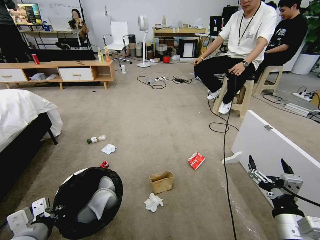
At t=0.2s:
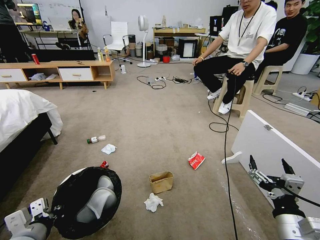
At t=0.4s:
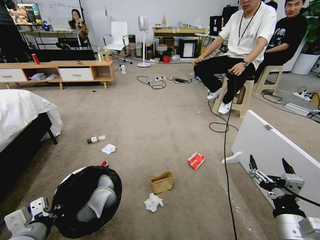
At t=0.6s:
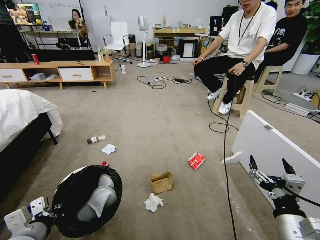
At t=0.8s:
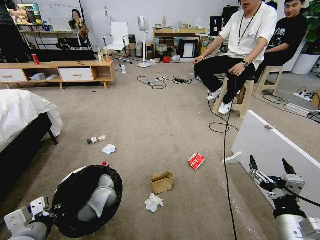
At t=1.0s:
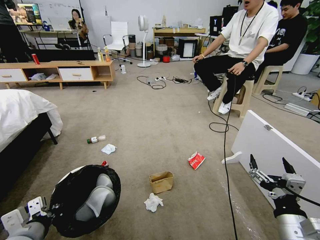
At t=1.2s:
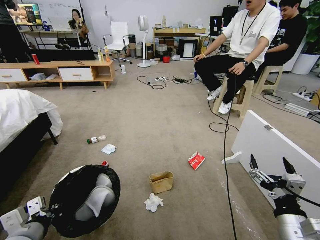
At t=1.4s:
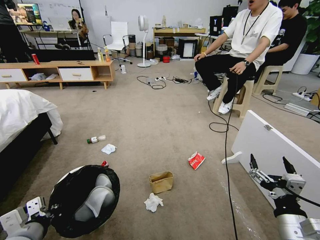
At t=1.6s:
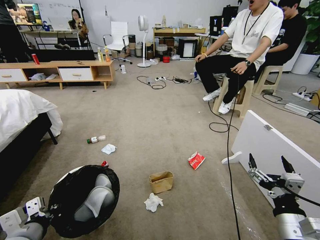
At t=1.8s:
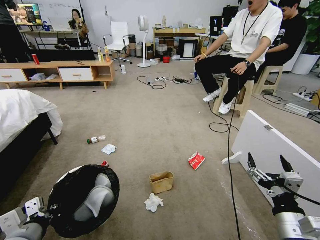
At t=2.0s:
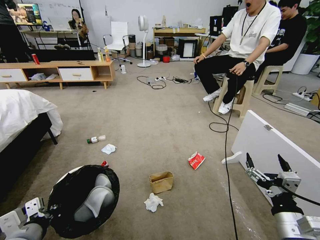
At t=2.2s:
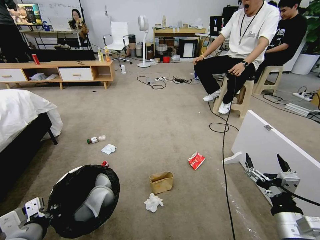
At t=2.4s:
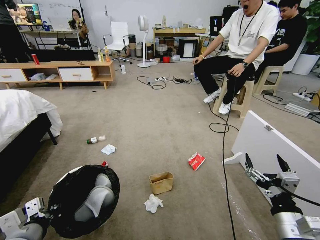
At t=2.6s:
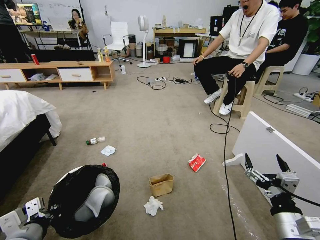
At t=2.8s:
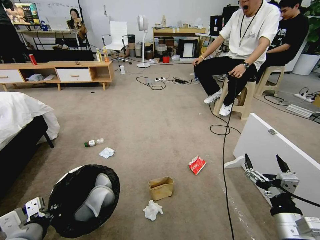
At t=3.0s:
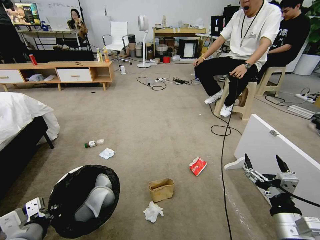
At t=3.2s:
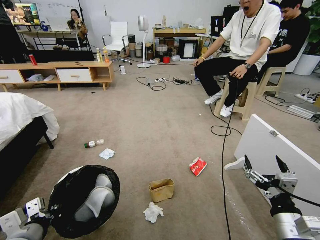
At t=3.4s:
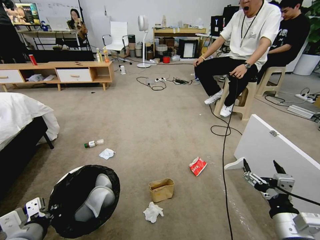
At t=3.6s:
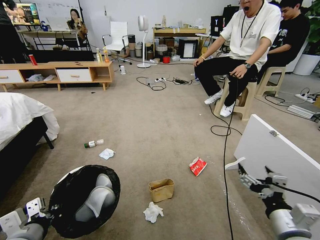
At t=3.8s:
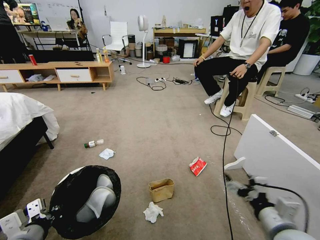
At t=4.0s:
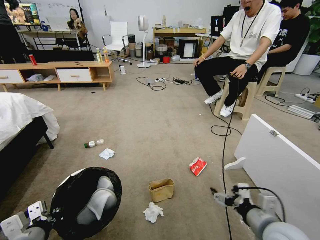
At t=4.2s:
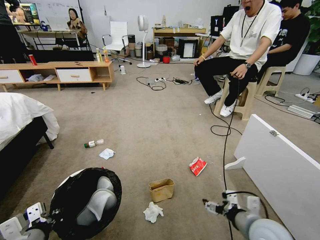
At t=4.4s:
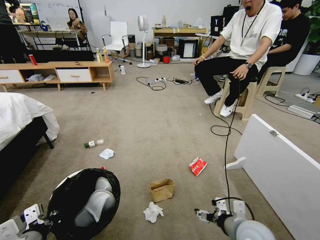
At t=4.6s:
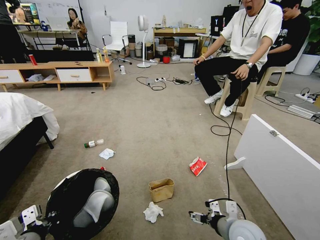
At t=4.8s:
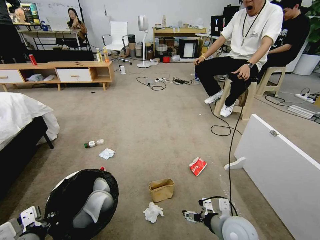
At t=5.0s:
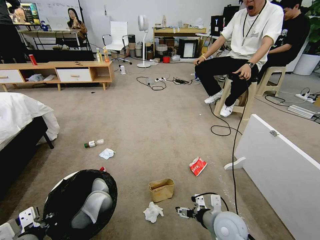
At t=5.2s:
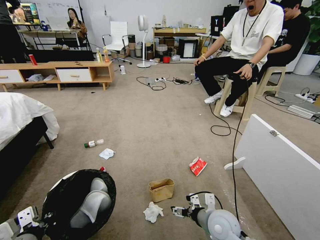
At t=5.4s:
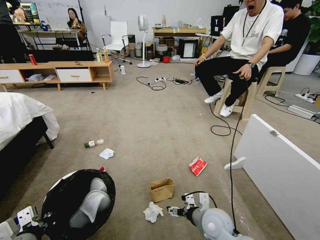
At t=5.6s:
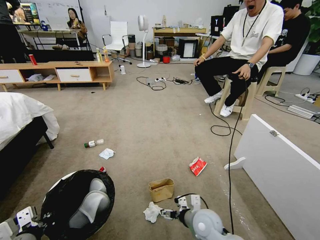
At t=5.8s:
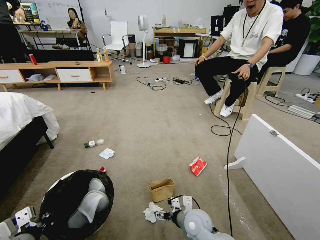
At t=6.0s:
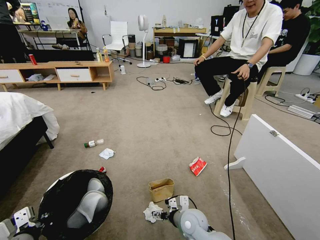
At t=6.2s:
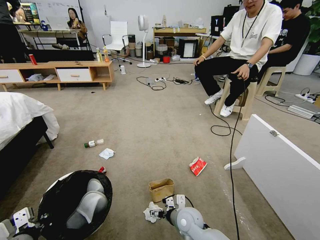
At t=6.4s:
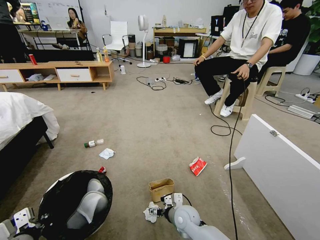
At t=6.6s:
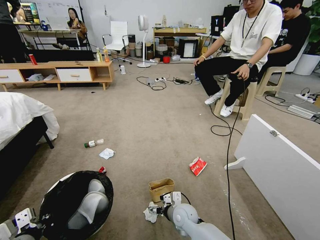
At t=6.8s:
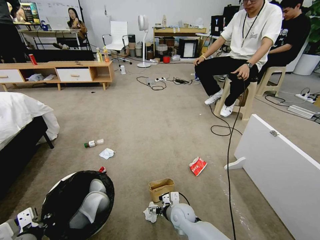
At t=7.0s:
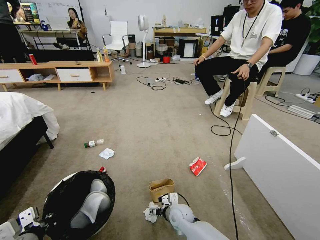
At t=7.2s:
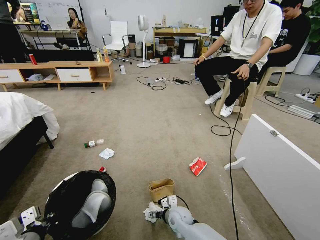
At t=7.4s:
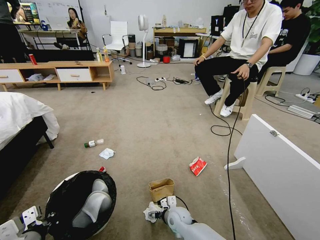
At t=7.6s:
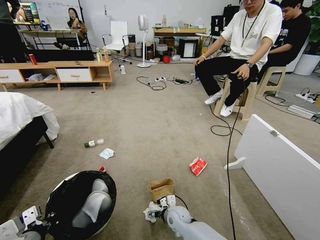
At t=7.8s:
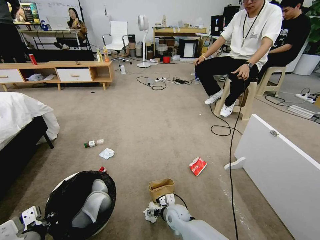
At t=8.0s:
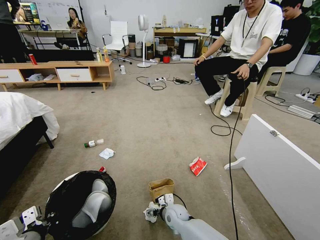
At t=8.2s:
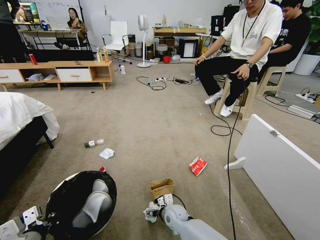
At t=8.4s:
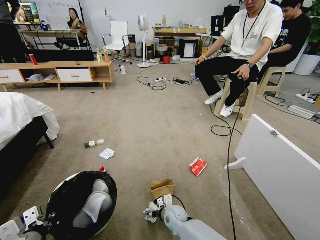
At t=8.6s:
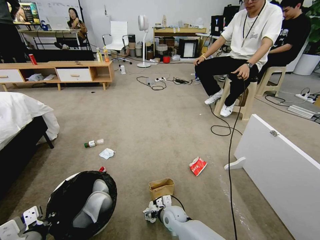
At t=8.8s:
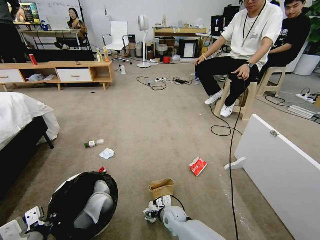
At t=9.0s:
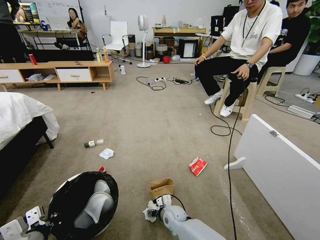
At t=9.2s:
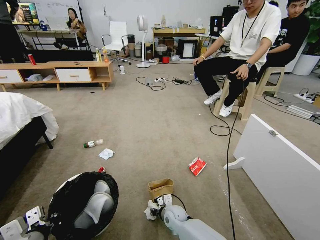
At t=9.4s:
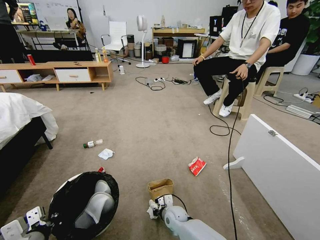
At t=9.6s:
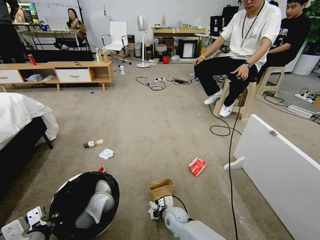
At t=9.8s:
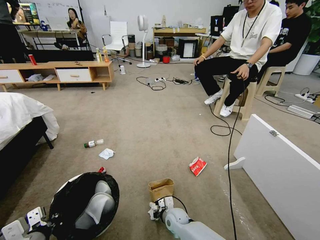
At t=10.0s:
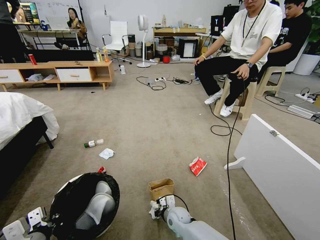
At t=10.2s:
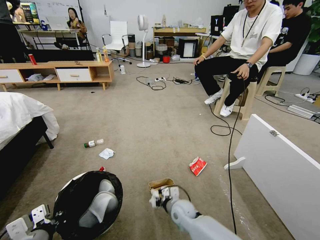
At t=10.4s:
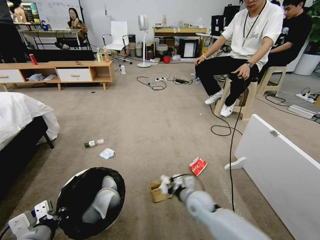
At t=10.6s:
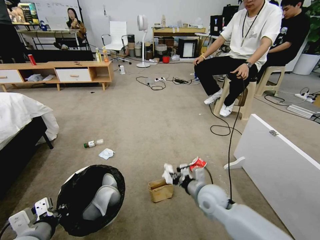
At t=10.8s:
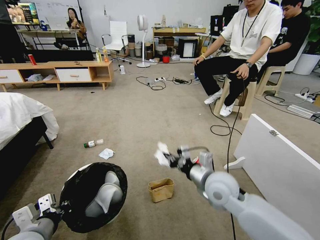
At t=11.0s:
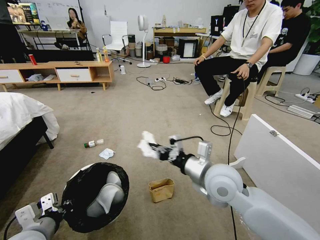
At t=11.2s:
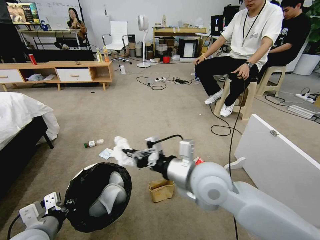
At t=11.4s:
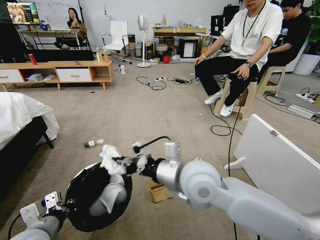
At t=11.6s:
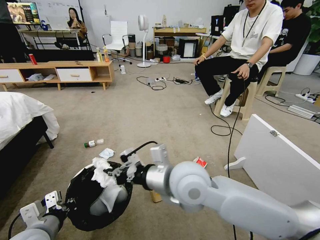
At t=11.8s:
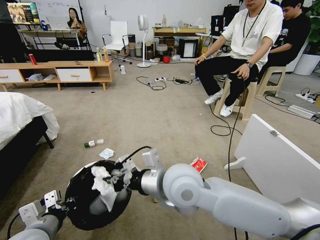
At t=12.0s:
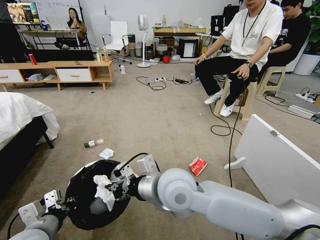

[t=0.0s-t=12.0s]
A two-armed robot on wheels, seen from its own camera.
Task of the whole recording: Pick up the trash bin and place the garbage on the floor into it.
t=1.6s to t=3.0s: Neither gripper changes place.
t=3.0s to t=4.4s: The right gripper moves forward, downward and to the left, about 10 cm.
t=4.4s to t=6.0s: The right gripper goes roughly 20 cm to the left, downward and forward.
t=6.0s to t=7.6s: The right gripper heads downward, covering some 5 cm.
t=7.6s to t=9.0s: The grippers move only a little.
t=9.0s to t=10.4s: The right gripper goes about 15 cm upward and to the right, and closes its fingers.
t=10.4s to t=12.0s: The right gripper goes about 25 cm upward and to the left.

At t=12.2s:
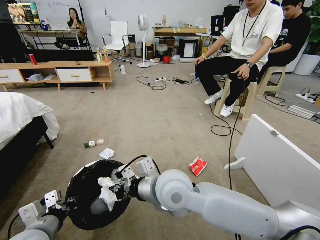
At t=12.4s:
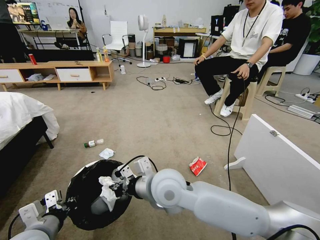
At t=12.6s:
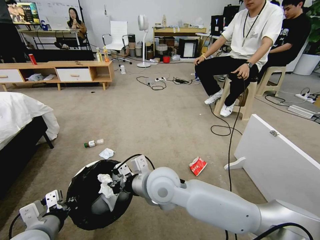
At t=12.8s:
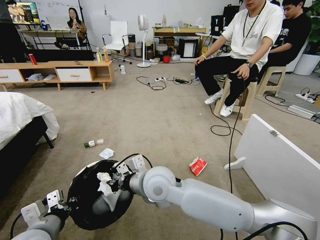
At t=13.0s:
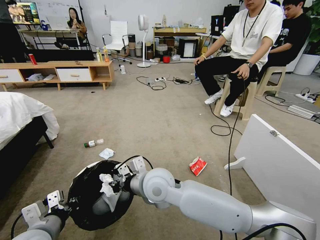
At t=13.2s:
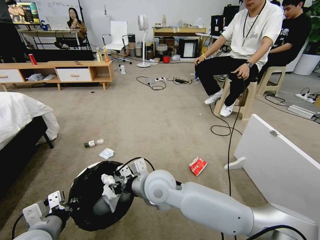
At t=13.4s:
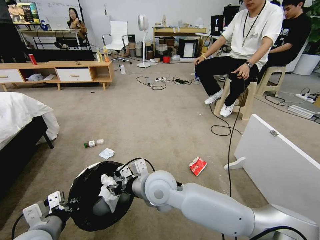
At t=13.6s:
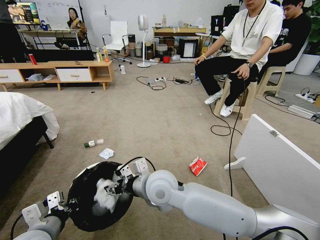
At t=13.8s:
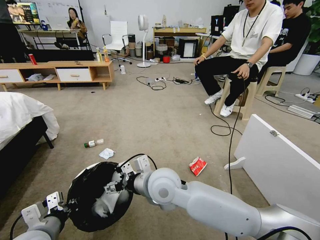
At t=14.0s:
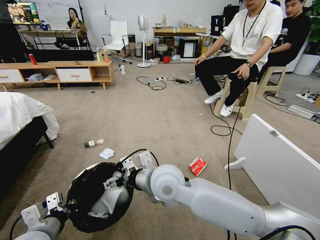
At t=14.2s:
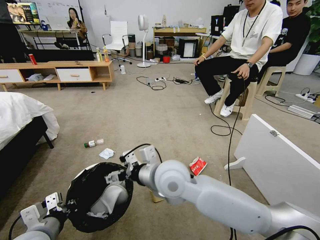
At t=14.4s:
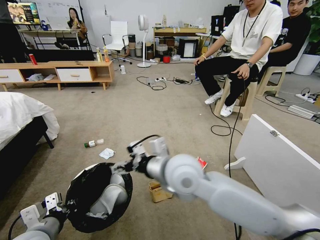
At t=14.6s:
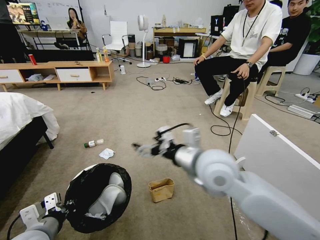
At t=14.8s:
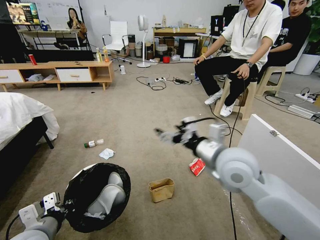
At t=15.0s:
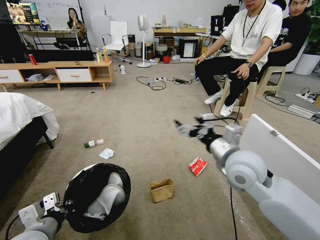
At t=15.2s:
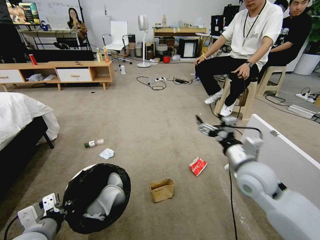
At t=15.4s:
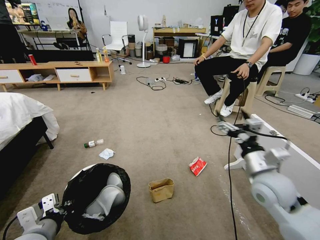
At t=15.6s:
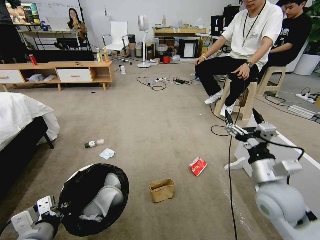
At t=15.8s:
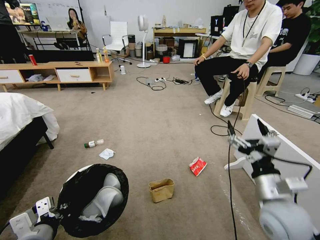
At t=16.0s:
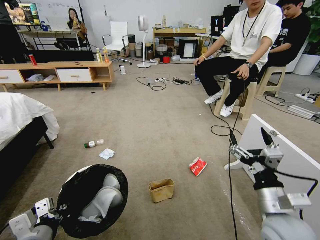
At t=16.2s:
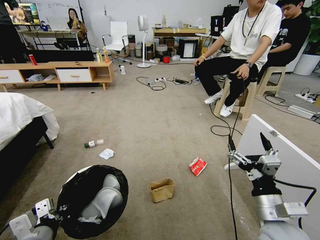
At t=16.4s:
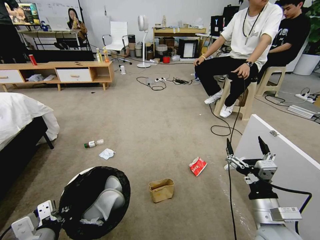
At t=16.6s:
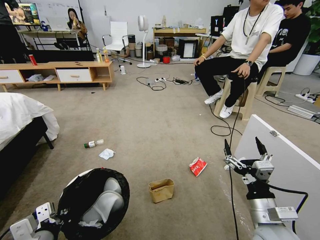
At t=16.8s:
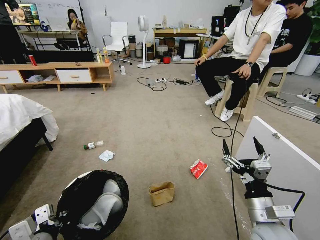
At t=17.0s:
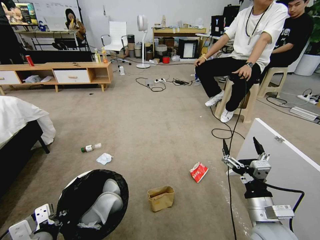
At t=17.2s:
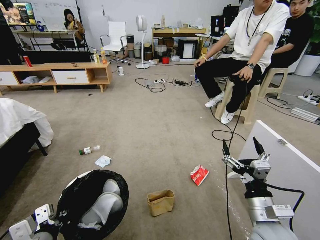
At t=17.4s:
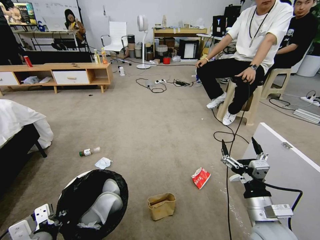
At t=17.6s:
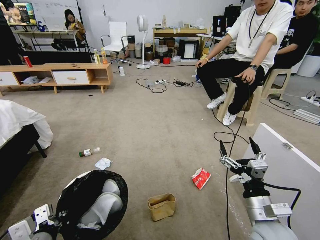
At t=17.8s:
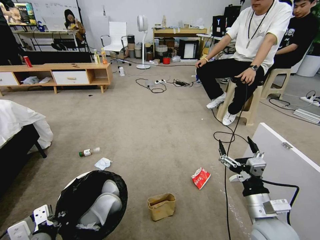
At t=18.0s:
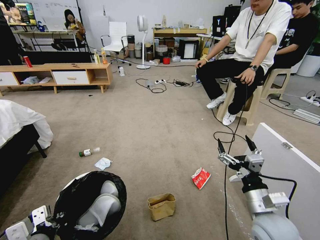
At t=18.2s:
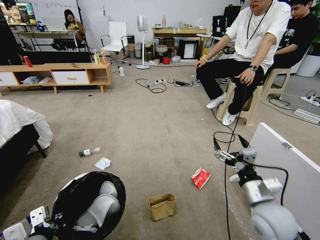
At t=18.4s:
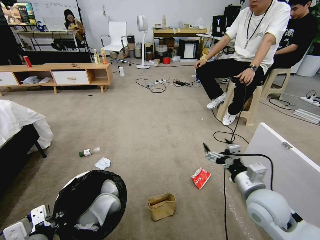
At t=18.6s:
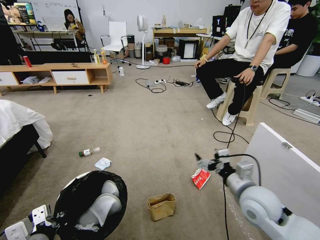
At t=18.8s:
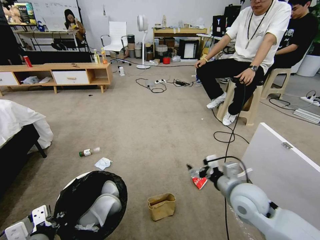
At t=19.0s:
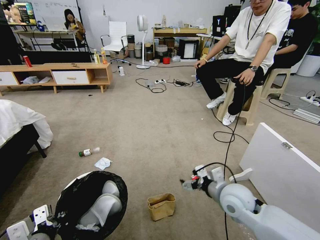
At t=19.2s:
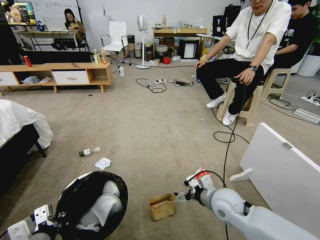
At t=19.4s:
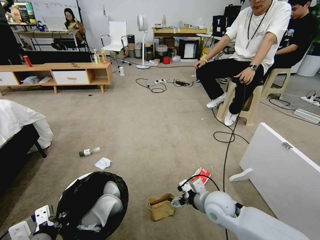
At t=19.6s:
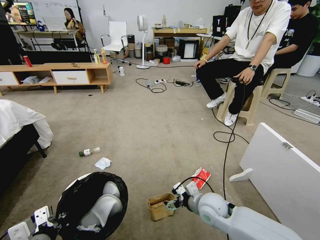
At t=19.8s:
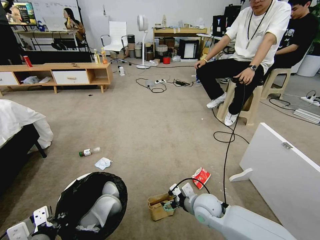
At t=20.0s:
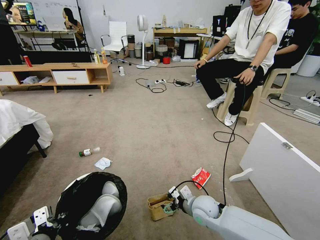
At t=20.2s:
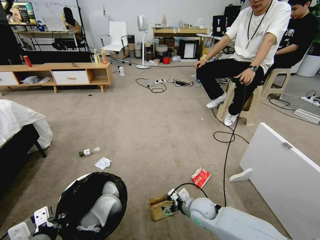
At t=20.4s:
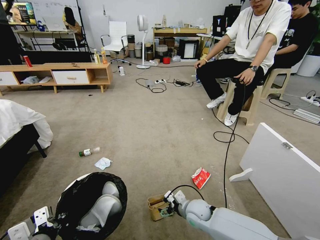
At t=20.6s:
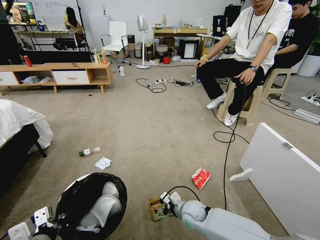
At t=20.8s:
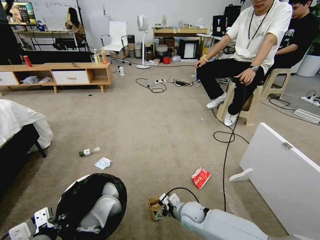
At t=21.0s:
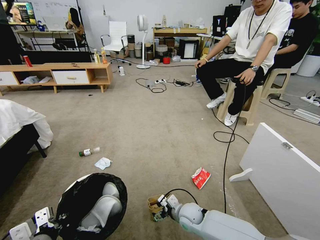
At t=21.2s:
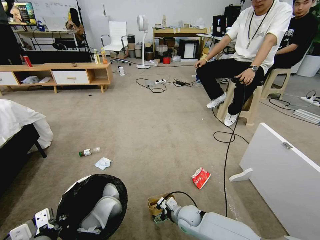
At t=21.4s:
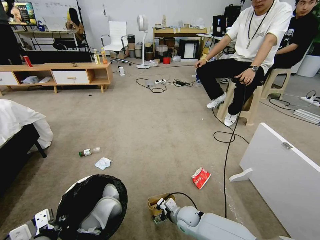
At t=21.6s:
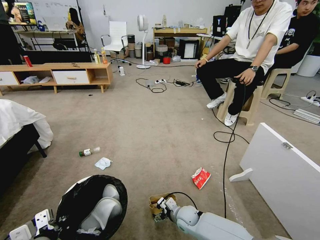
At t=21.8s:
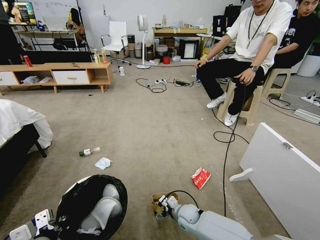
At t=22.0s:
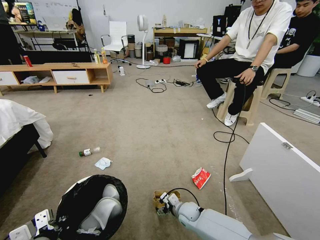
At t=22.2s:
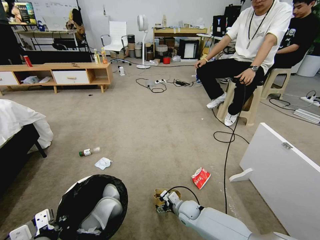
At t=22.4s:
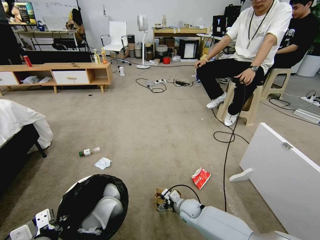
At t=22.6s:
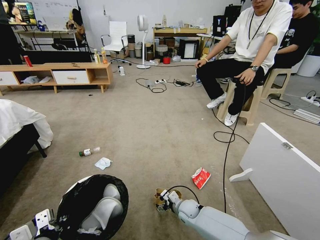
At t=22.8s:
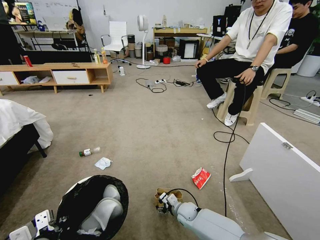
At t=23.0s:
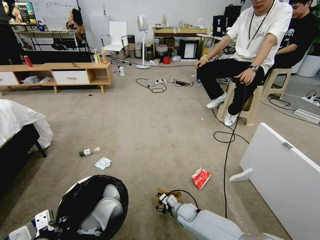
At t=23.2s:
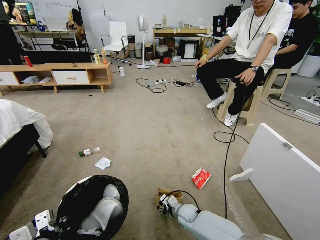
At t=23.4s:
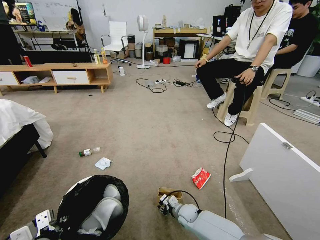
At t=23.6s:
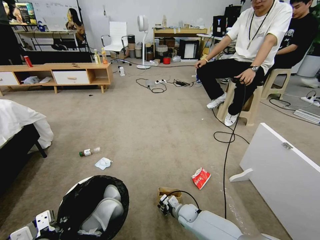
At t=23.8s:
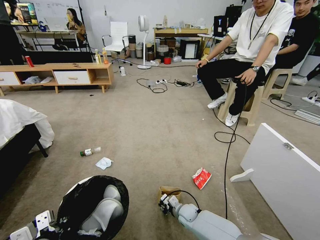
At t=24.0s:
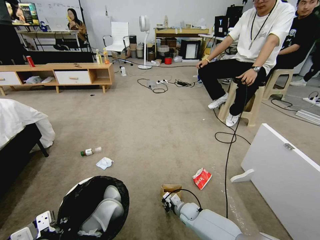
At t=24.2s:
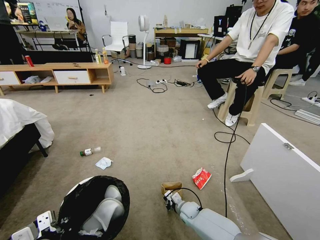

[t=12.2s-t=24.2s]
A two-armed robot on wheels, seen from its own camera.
Task of the whole recording: Pick up the trash bin and place the garbage on the floor into it.
t=12.2s to t=13.8s: The right gripper opens its fingers.
t=13.8s to t=15.2s: The right gripper is displaced to the right by about 25 cm.
t=15.2s to t=16.6s: The right gripper heads backward and downward, covering some 15 cm.
t=16.6s to t=18.2s: The right gripper is displaced forward by about 5 cm.
t=18.2s to t=19.8s: The right gripper moves to the left, downward and forward, some 20 cm.
t=19.8s to t=21.2s: The right gripper is displaced downward by roughly 10 cm.
t=21.2s to t=22.6s: The right gripper ends up about 5 cm from where it was.
t=22.6s to t=24.2s: The right gripper closes.
